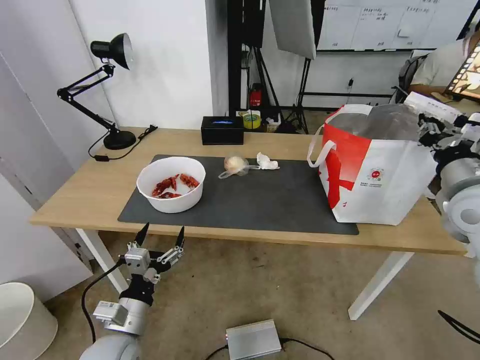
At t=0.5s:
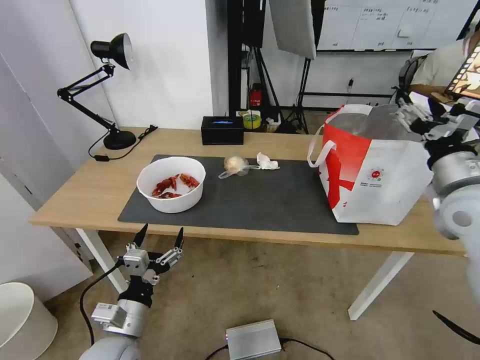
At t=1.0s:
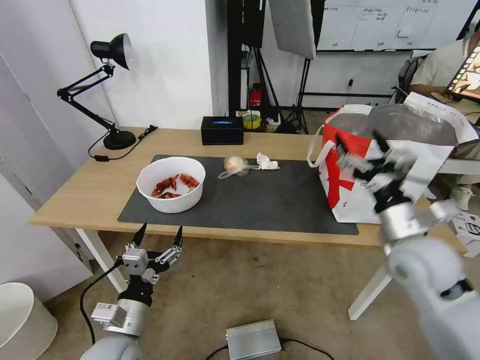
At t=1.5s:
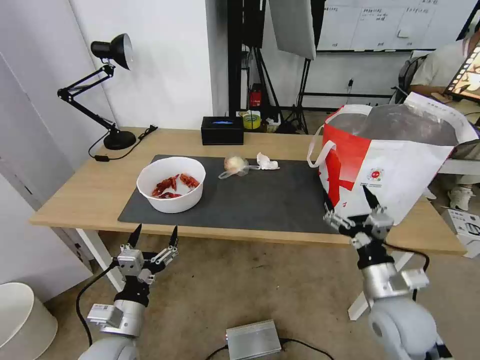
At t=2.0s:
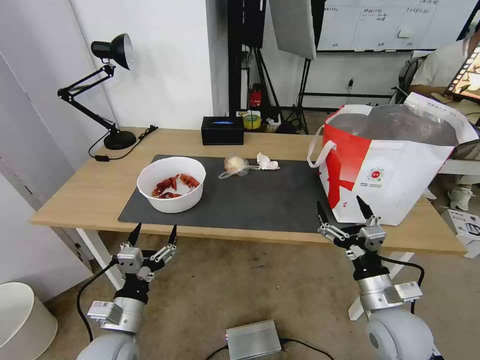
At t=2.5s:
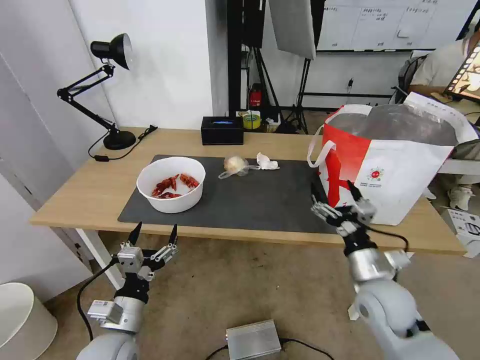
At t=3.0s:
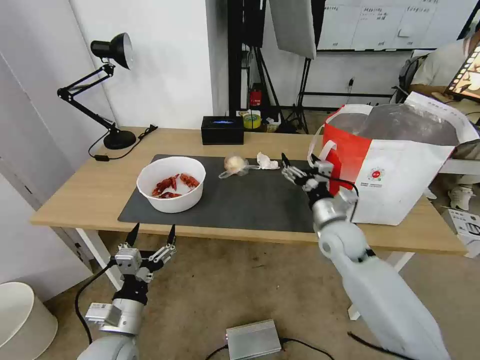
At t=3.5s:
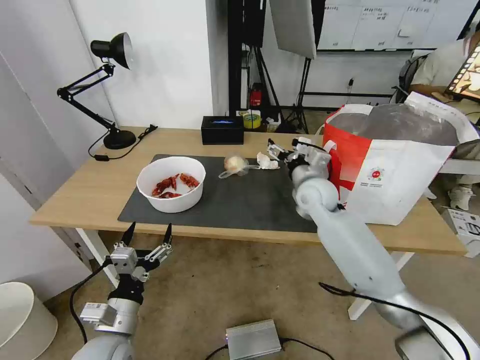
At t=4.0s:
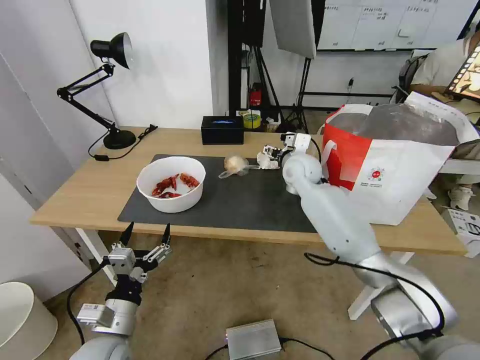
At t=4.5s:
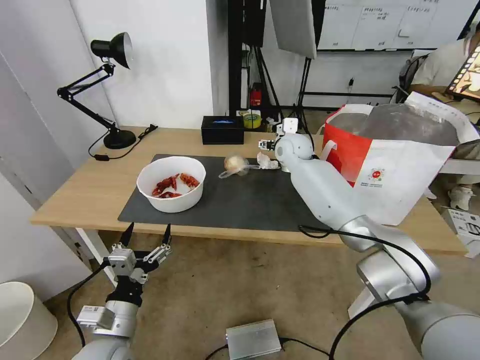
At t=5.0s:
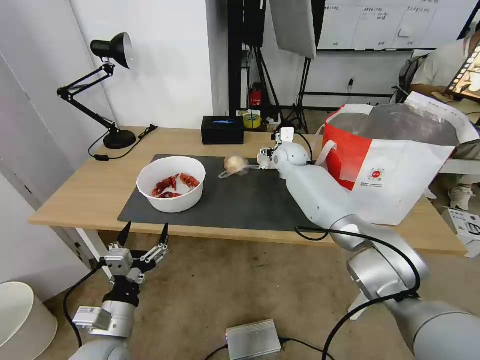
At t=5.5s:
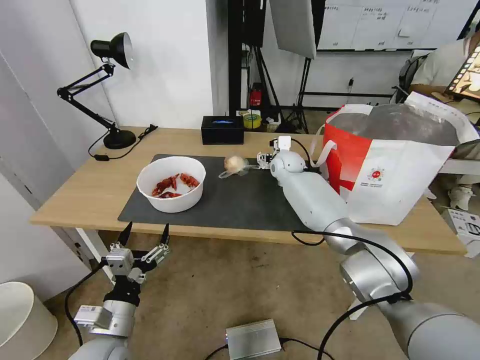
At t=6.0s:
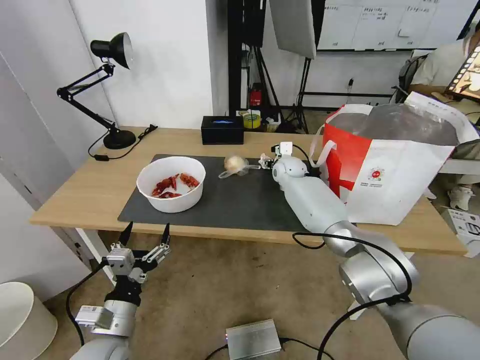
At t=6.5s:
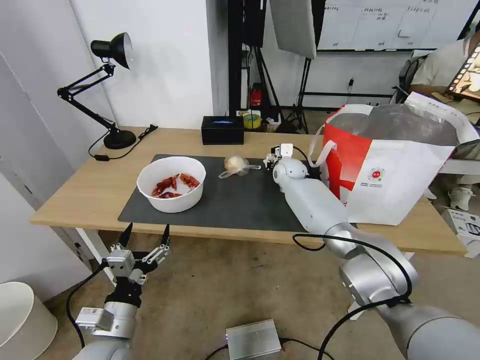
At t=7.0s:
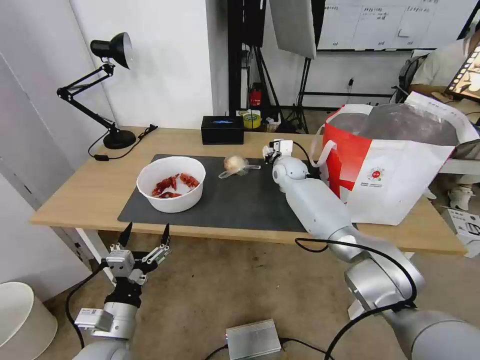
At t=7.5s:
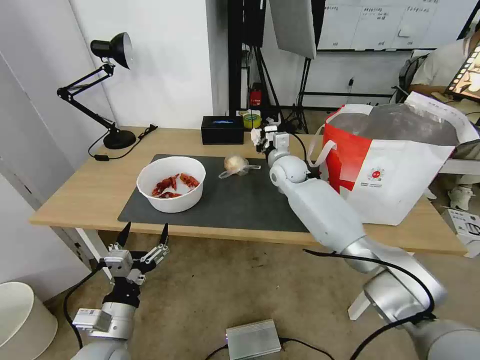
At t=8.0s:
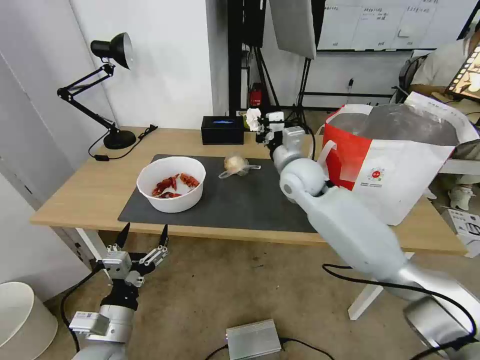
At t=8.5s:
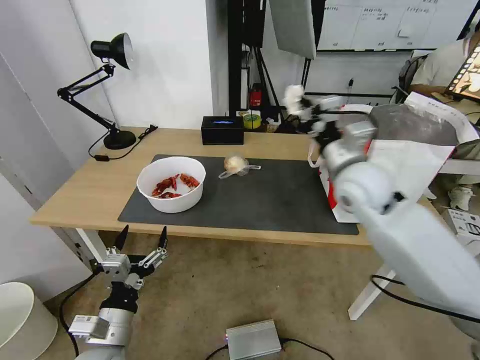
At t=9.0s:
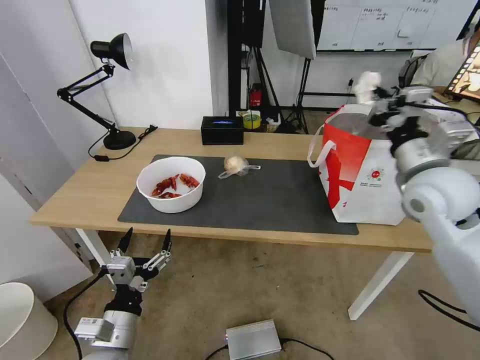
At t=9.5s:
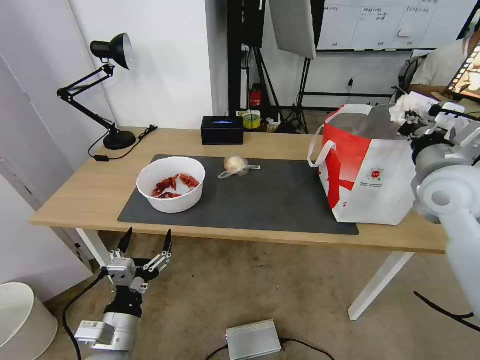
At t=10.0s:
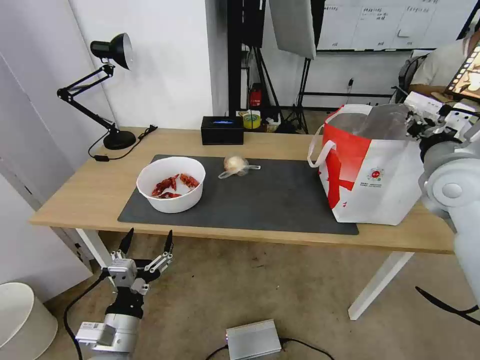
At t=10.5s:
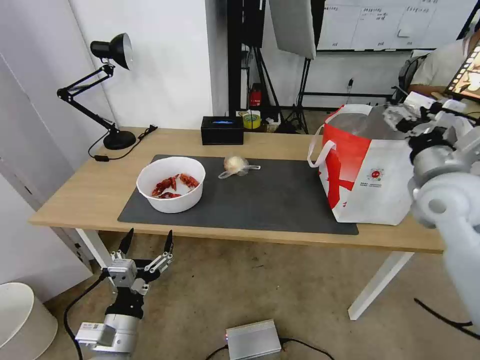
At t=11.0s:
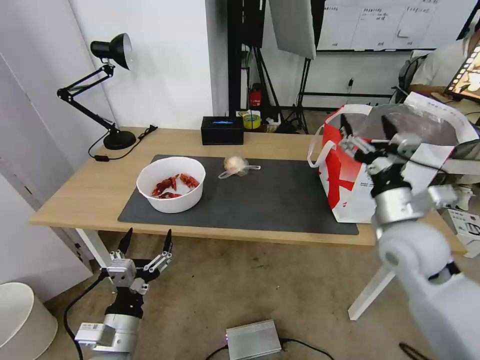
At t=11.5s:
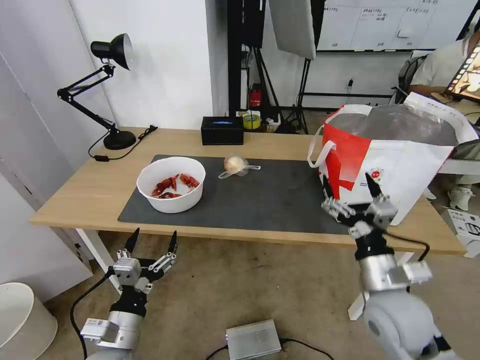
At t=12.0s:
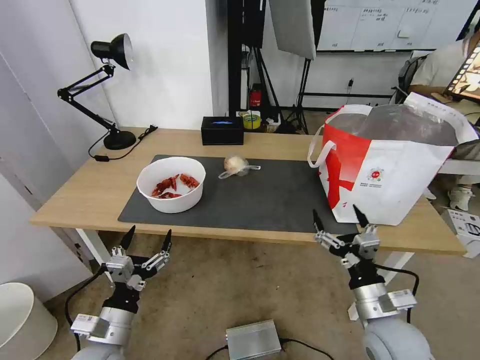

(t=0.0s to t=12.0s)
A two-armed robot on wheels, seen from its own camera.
Task of the whole recording: Pick up the trash from the table and place it into the takeout bag.
t=0.0s - t=2.0s: The right gripper travels downward, backward and to the left by roughly 25 cm, and opens up.
t=2.0s - t=4.0s: The right gripper travels forward by roughly 35 cm.
t=4.0s - t=6.0s: The right gripper shifts some 10 cm forward and downward.
t=6.0s - t=8.0s: The right gripper moves backward and upward, approximately 15 cm, and closes its fingers.
t=8.0s - t=10.0s: The right gripper is displaced to the right and backward by approximately 25 cm, and opens its fingers.
t=10.0s - t=12.0s: The right gripper is displaced downward, backward and to the left by about 30 cm, and opens its fingers.

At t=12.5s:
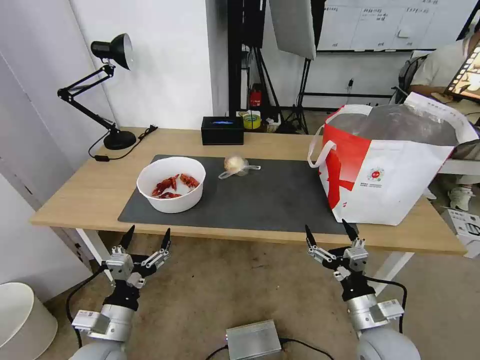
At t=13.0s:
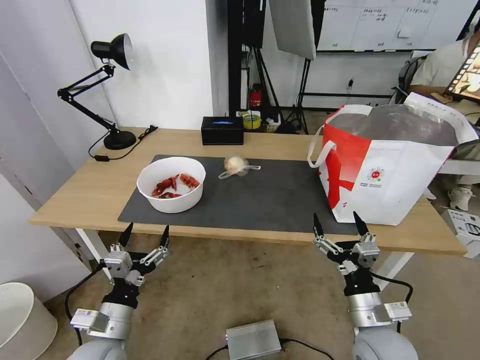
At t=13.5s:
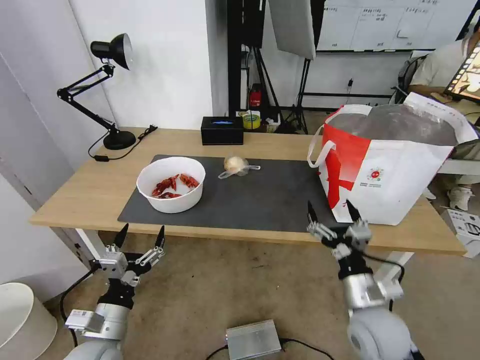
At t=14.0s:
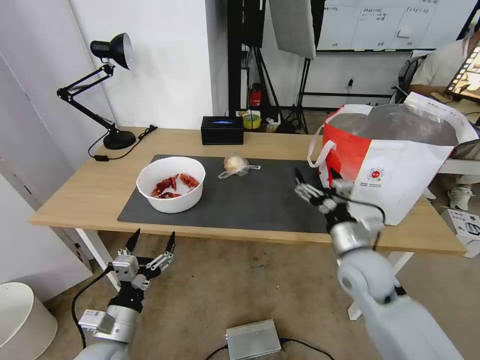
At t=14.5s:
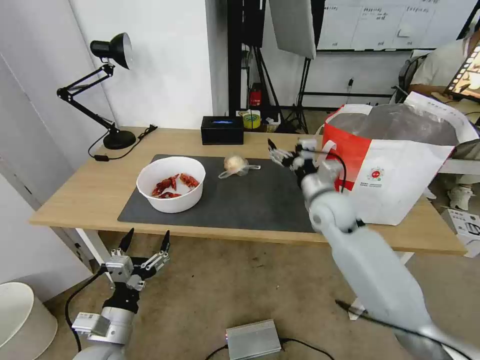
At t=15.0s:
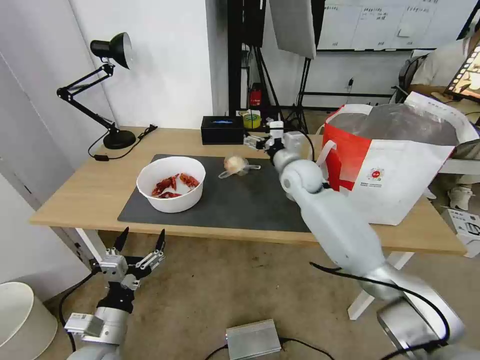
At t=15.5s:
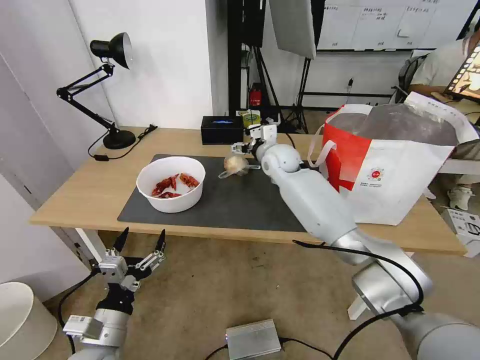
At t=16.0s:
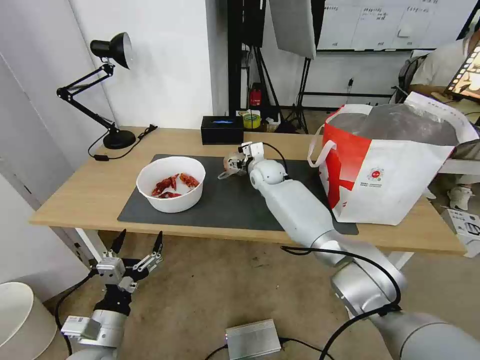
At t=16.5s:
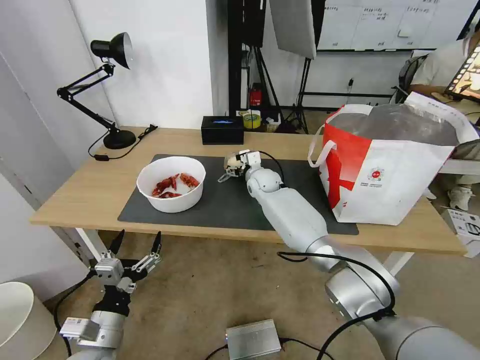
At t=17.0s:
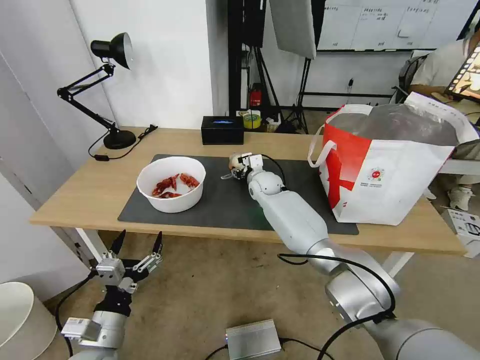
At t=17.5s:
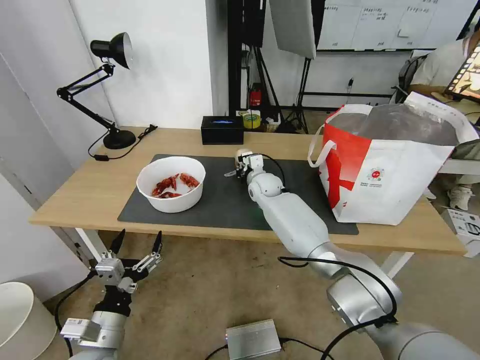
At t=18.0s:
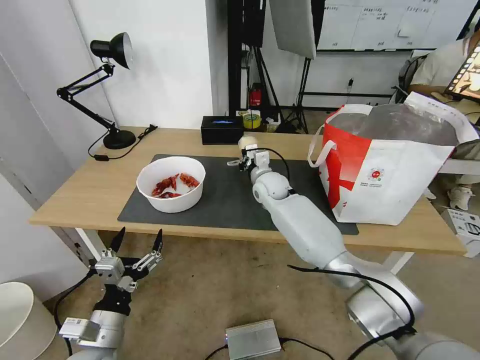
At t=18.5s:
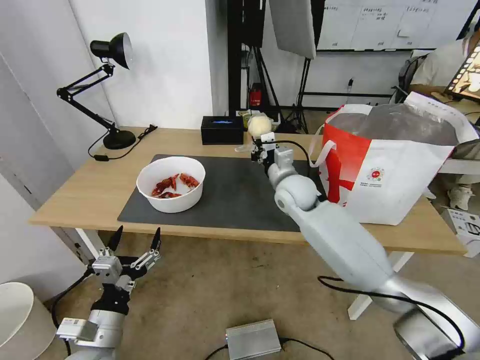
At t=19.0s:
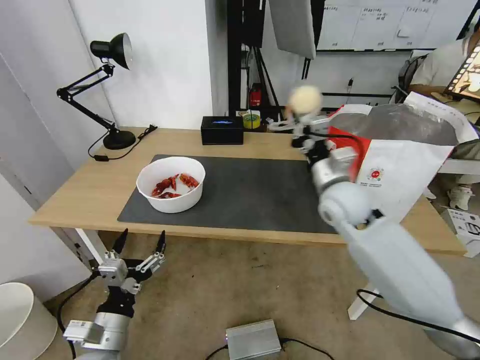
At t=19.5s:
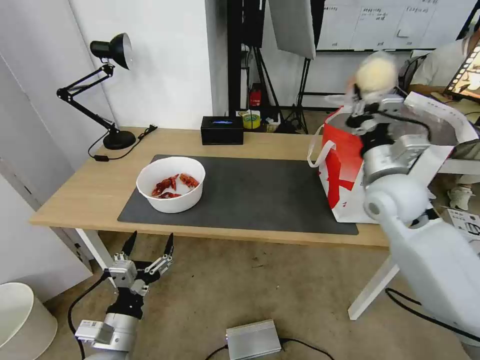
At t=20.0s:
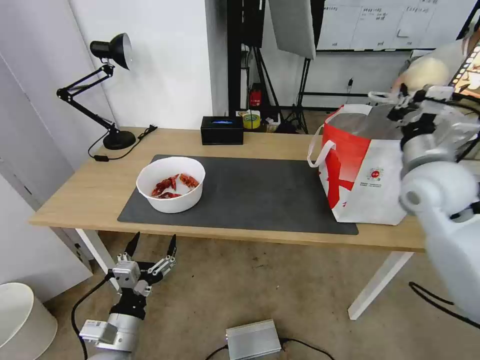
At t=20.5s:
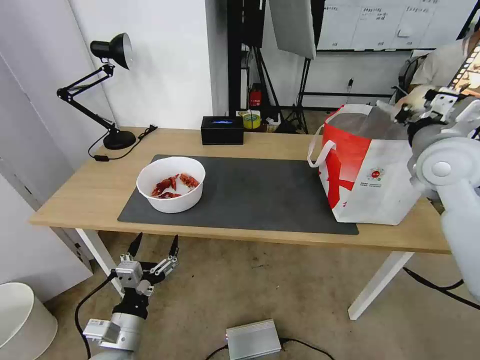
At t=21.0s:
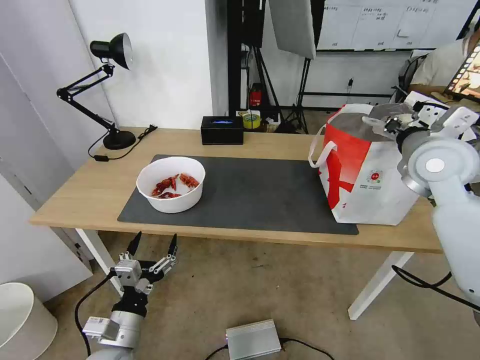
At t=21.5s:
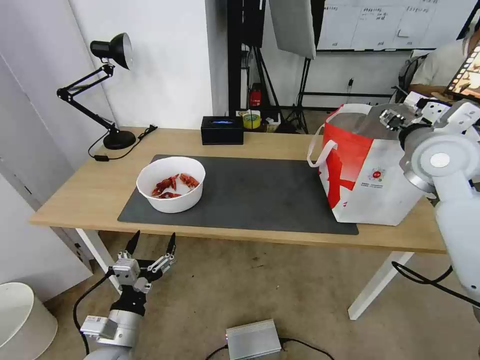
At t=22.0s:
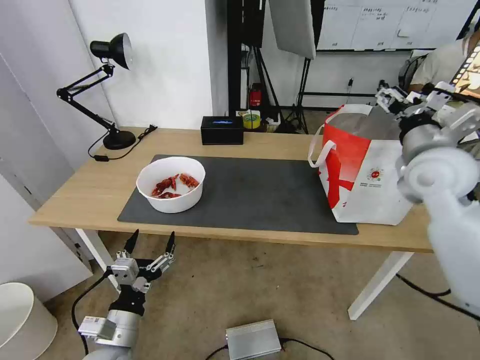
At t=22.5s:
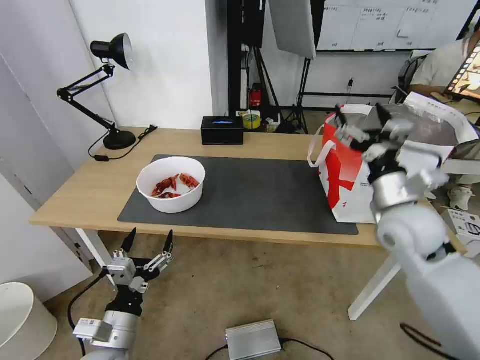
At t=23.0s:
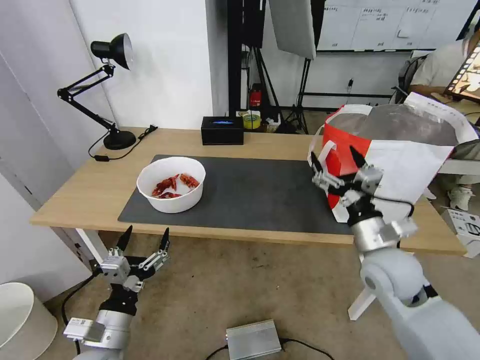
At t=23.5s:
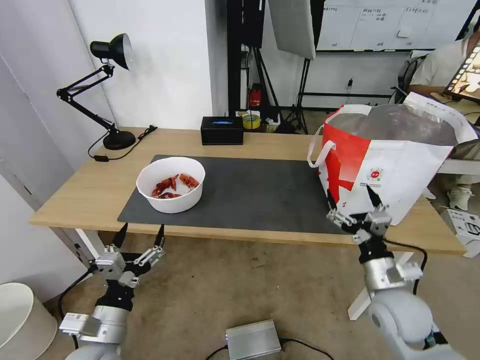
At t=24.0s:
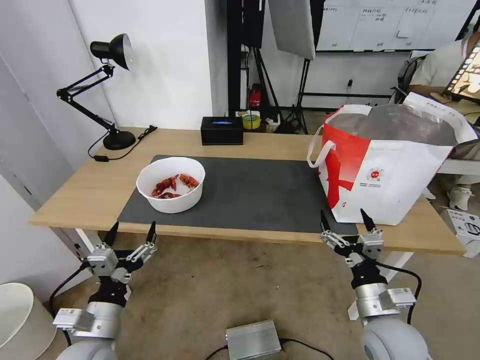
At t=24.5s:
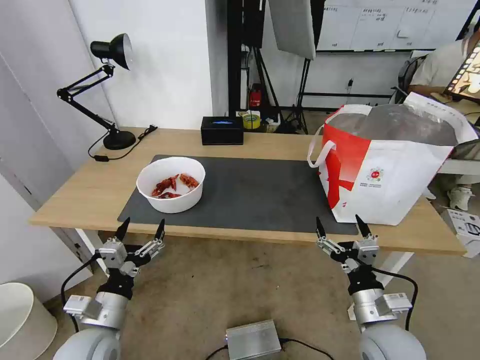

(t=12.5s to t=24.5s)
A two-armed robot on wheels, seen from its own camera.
Task of the whole recording: Pick up the trash from the table and place it into the takeout bag.
t=12.5s - t=14.5s: The right gripper moves forward and upward, approximately 30 cm.
t=14.5s - t=16.5s: The right gripper is displaced forward and to the left by approximately 20 cm.
t=16.5s - t=18.5s: The right gripper is displaced backward, upward and to the right by about 10 cm, and closes up.
t=18.5s - t=20.5s: The right gripper heads to the right, upward and backward, covering roughly 30 cm.
t=20.5s - t=22.5s: The right gripper heads downward and backward, covering approximately 10 cm, and opens up.
t=22.5s - t=24.5s: The right gripper moves backward and downward, about 25 cm.

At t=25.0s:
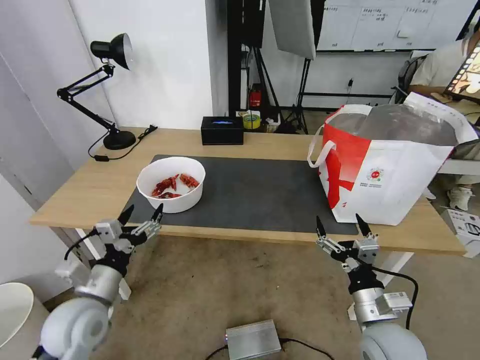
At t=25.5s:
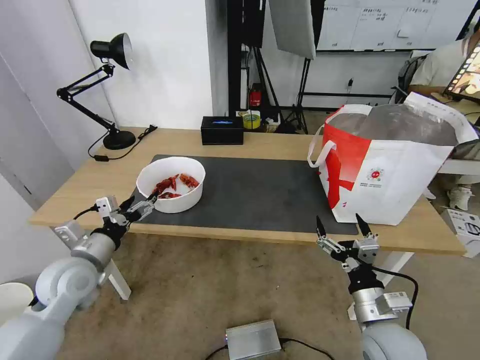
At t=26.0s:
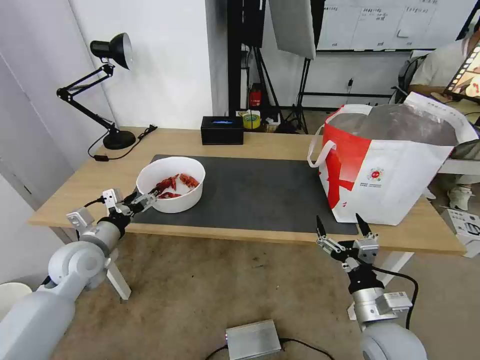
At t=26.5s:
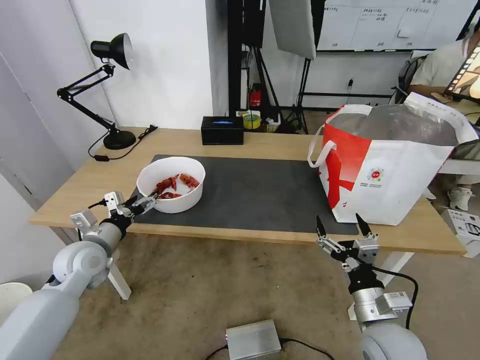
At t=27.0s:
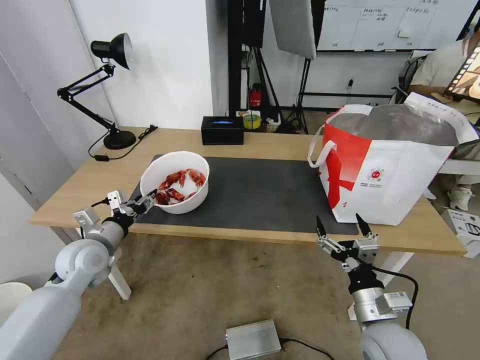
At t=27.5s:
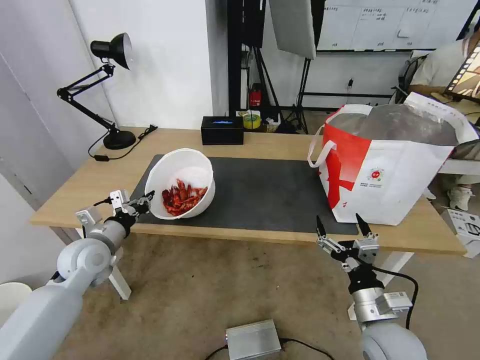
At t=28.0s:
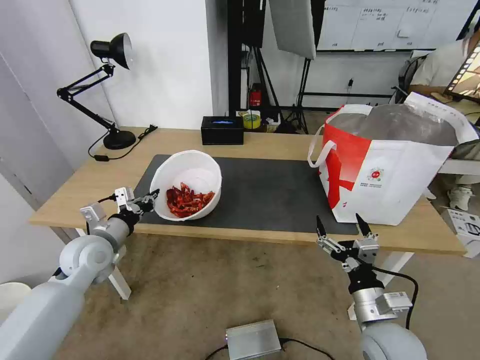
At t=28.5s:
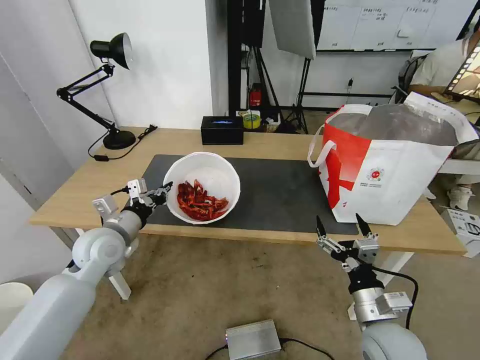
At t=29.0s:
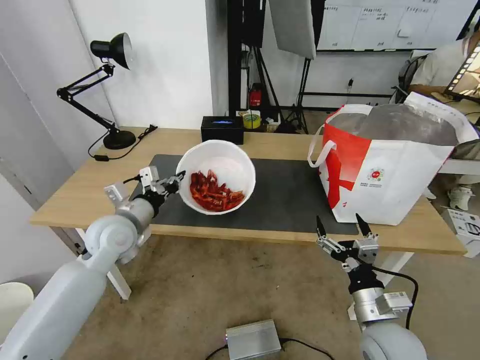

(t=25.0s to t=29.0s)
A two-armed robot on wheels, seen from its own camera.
Task of the whole recording: Pick up the trash from the table and place it into the takeout bag.
t=25.0s - t=27.0s: The left gripper is displaced forward by about 15 cm, and closes.
t=27.0s - t=29.0s: The left gripper heads to the right and upward, covering approximately 10 cm, and closes.
